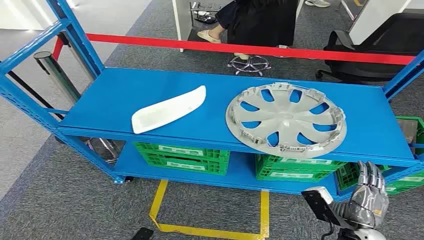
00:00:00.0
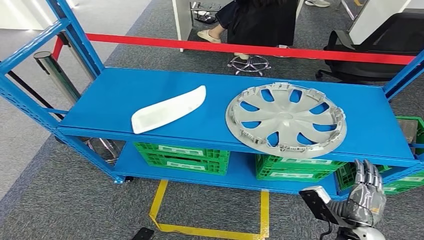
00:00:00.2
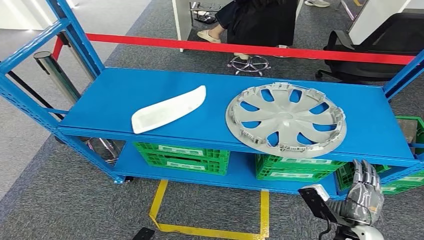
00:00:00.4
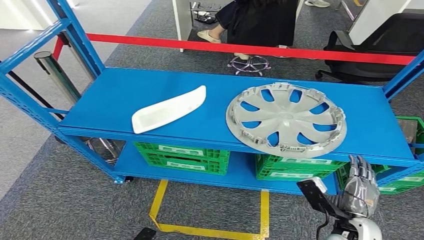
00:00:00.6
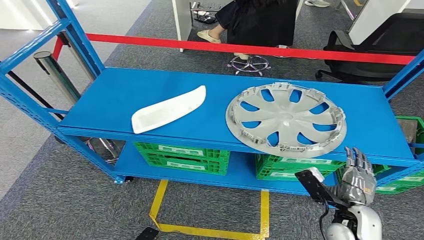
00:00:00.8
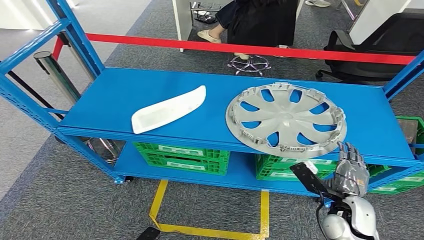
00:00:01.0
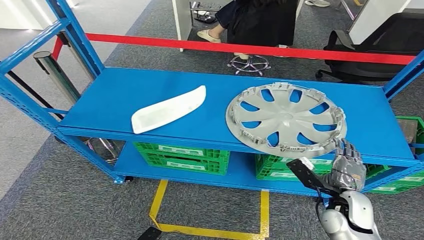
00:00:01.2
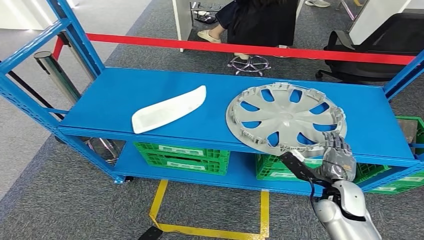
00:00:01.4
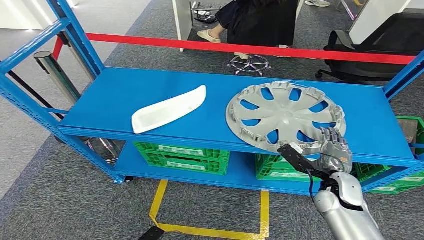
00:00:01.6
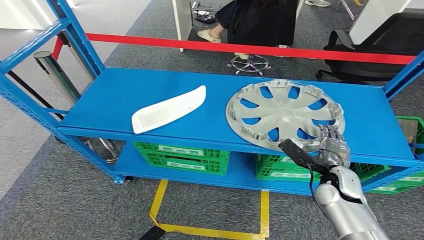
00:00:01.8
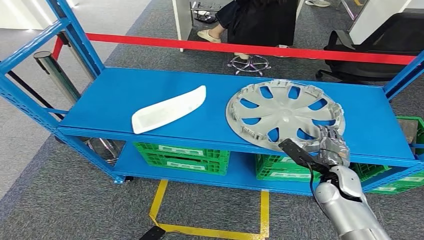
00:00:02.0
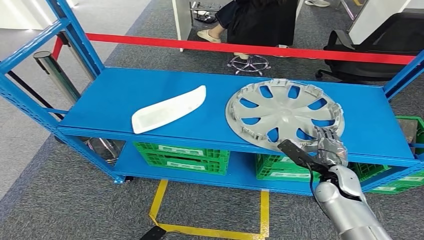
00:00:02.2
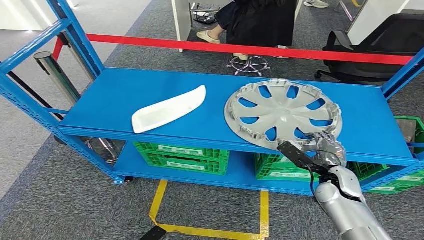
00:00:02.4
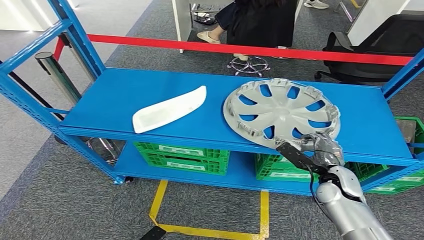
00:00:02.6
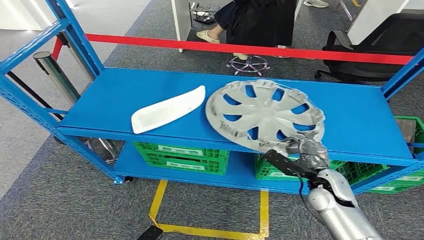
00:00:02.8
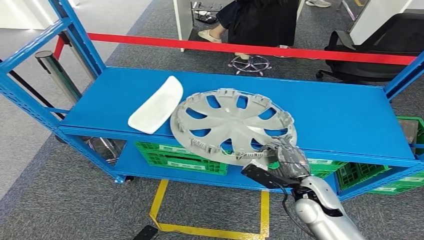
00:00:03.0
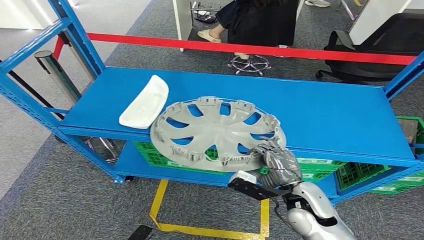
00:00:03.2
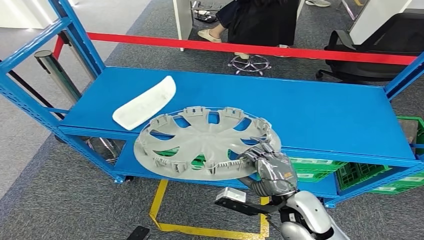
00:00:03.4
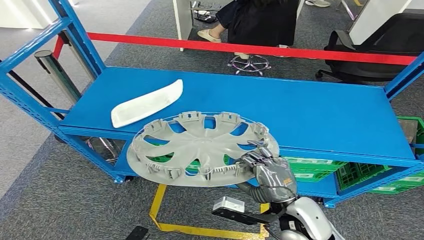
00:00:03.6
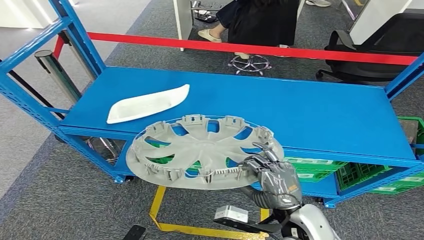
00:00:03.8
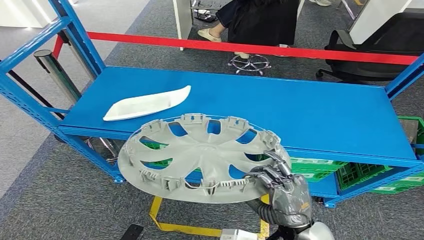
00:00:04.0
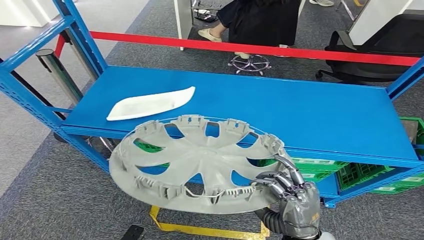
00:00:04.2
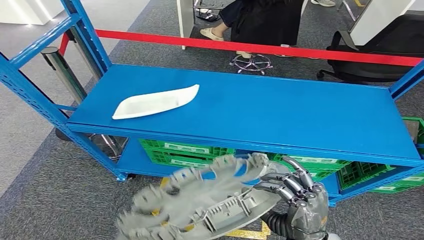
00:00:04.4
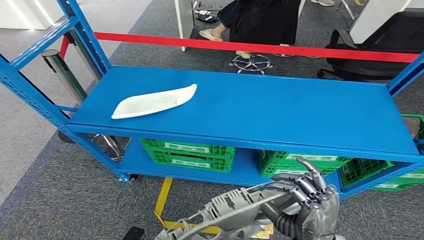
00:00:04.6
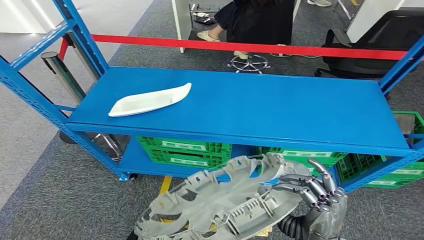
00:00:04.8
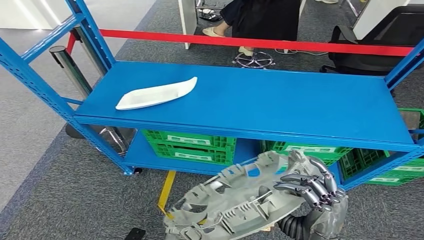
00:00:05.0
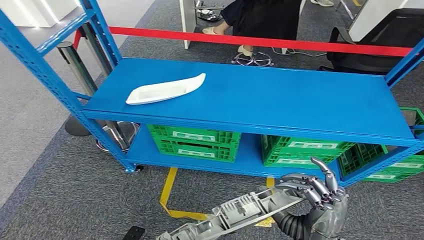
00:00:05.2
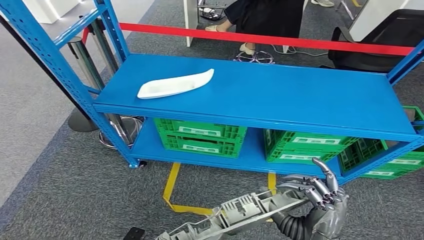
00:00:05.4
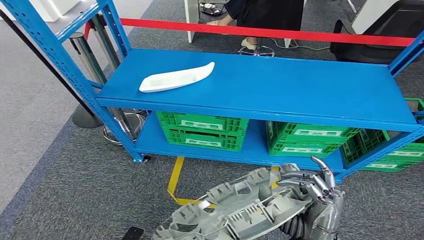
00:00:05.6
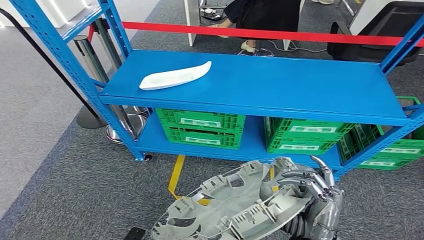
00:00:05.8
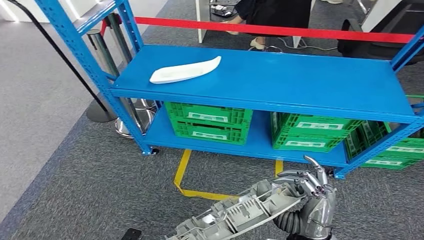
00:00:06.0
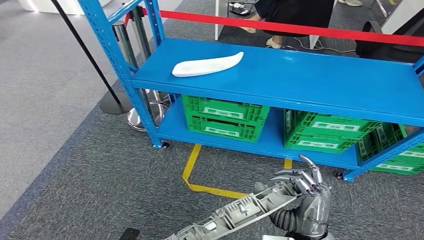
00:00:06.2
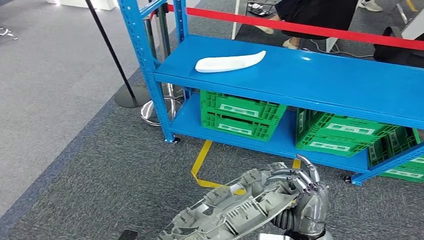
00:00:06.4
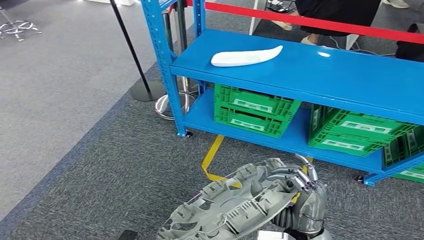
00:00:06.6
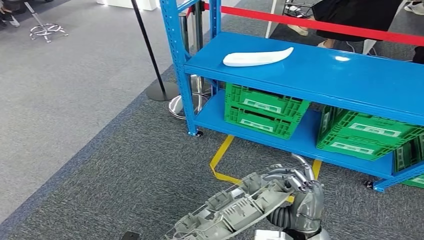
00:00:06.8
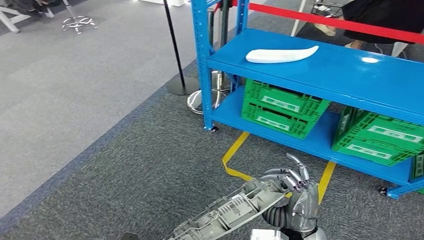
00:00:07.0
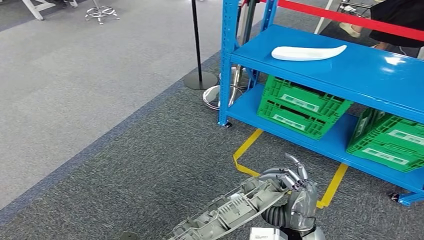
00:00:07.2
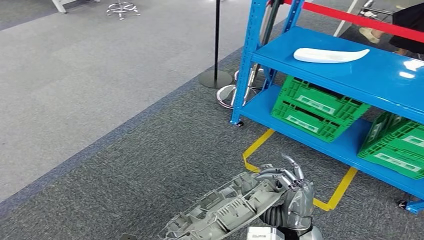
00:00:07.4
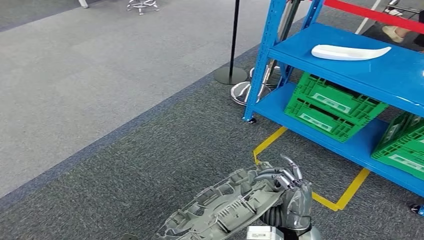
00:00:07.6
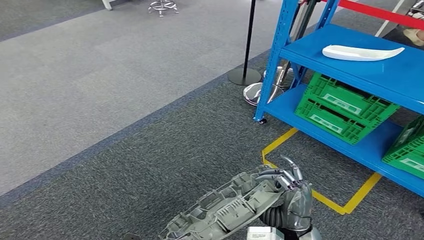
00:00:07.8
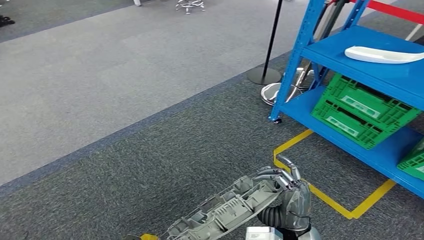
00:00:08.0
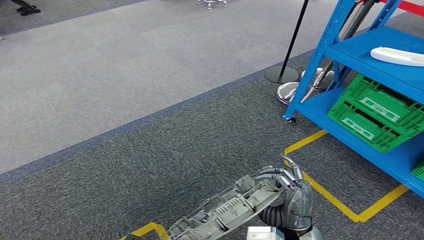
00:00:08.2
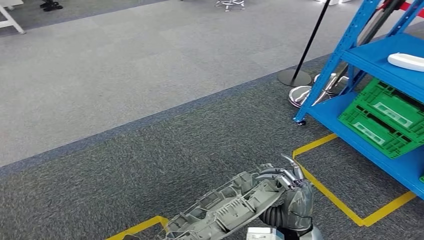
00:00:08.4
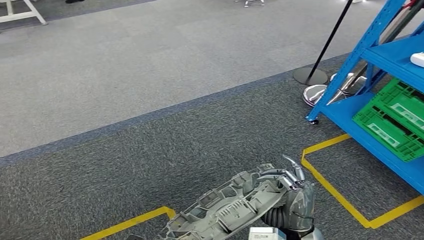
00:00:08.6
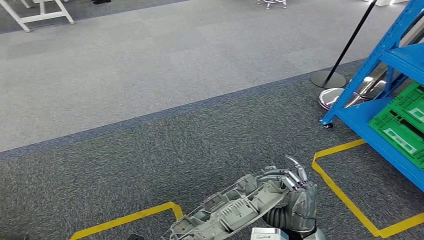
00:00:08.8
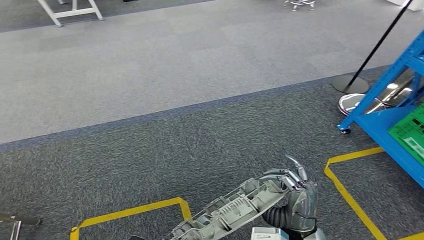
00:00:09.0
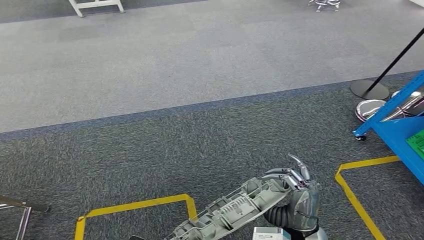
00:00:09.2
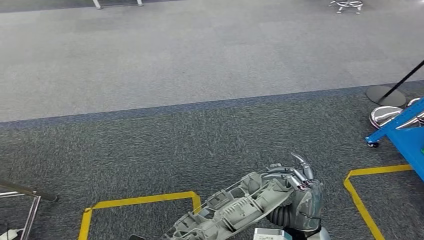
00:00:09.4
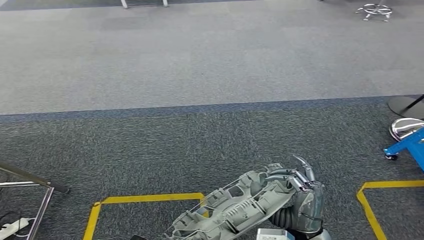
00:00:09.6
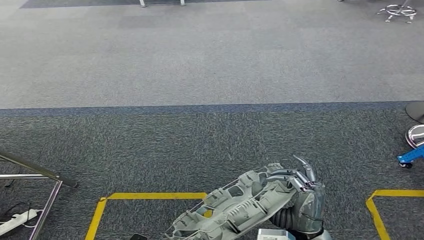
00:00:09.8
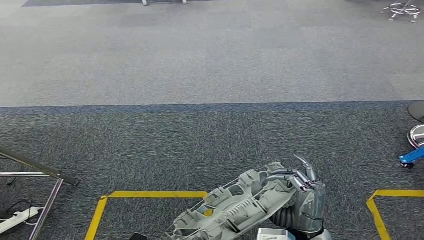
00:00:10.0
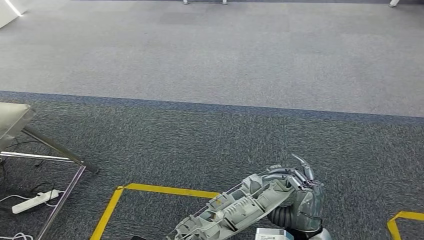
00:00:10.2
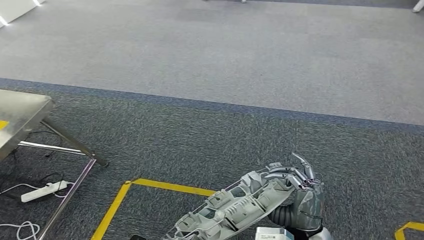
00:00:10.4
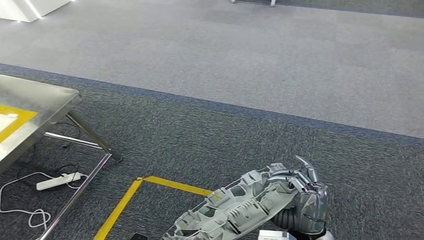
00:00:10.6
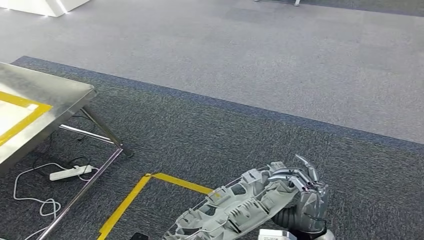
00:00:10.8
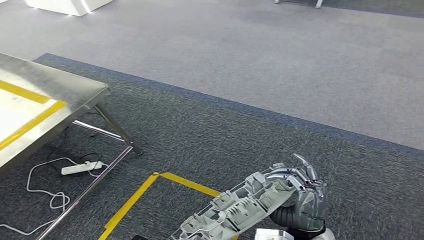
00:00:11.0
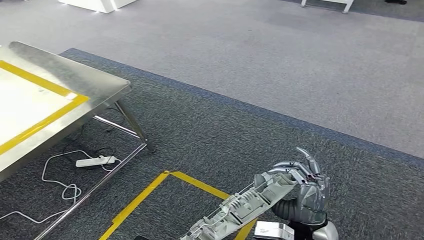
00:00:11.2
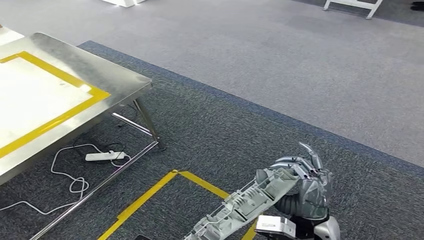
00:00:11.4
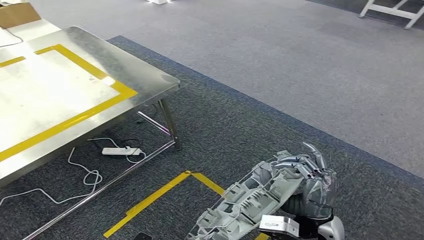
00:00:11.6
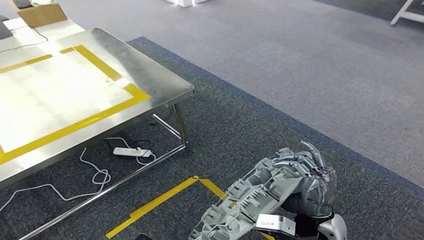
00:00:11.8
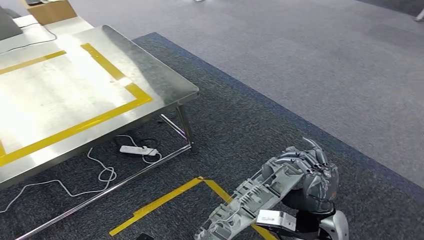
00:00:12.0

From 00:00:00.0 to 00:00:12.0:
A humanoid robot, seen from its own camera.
Step, from 00:00:00.0 to 00:00:05.6: Pick up the small component from the shelf.
From 00:00:01.6 to 00:00:03.0: The right hand is displaced to the left by approximately 5 cm.

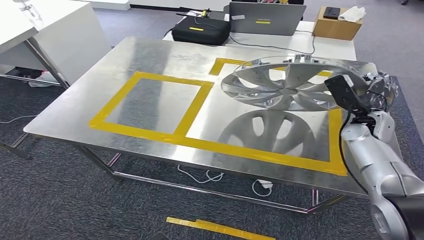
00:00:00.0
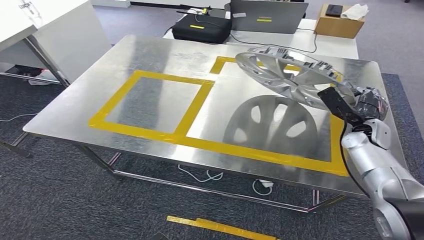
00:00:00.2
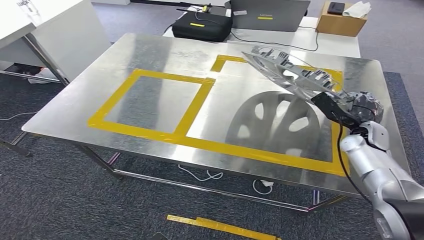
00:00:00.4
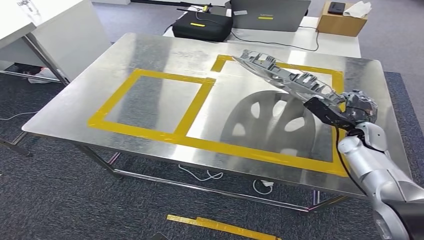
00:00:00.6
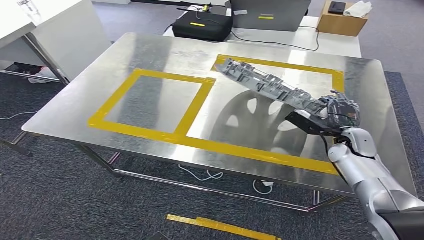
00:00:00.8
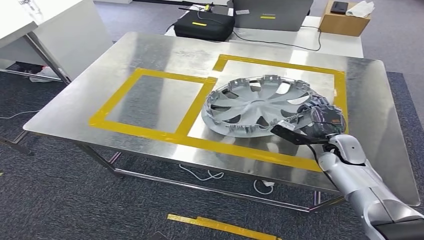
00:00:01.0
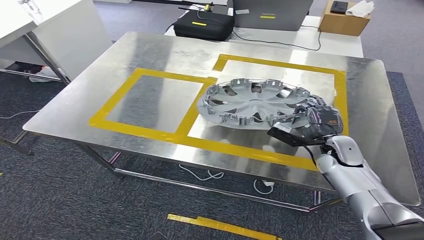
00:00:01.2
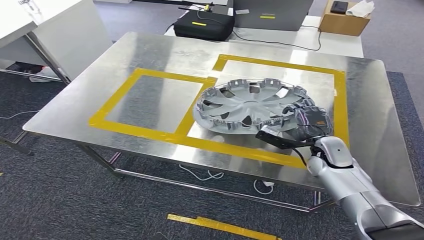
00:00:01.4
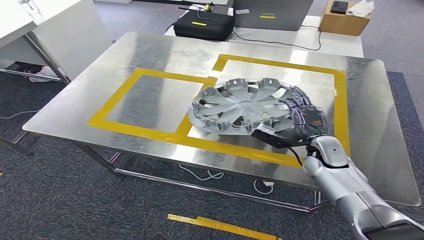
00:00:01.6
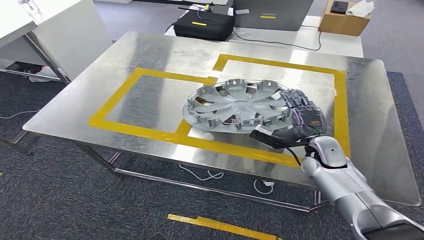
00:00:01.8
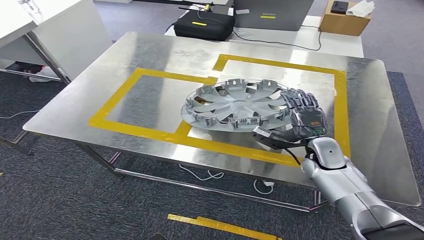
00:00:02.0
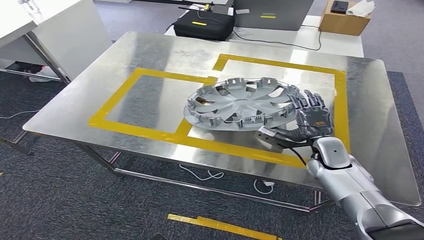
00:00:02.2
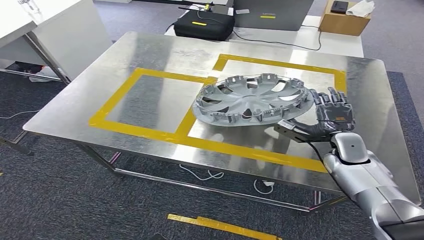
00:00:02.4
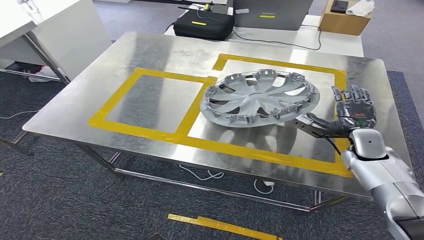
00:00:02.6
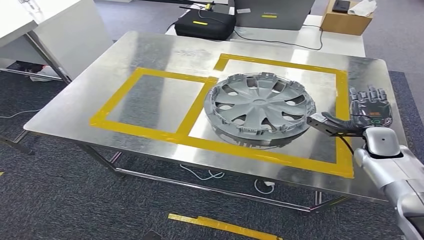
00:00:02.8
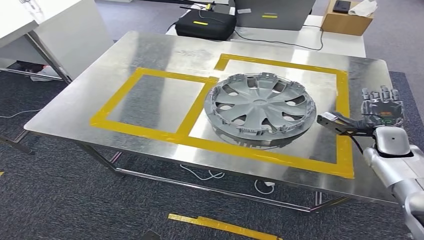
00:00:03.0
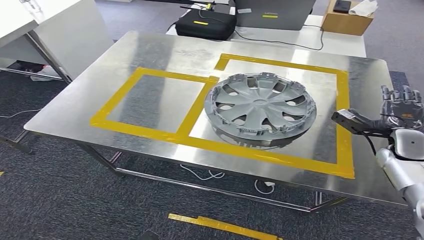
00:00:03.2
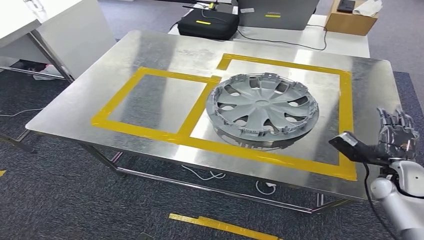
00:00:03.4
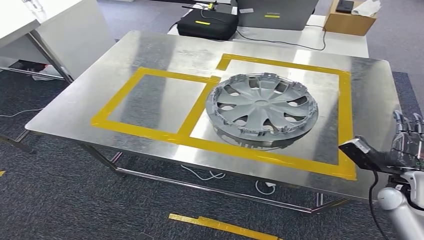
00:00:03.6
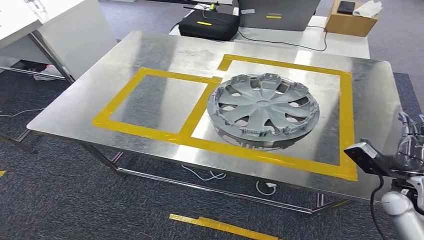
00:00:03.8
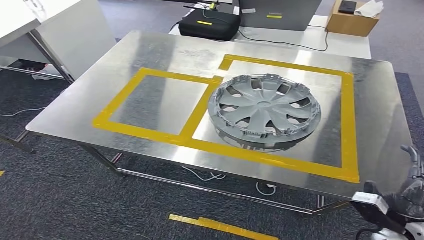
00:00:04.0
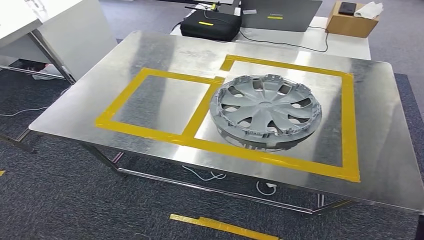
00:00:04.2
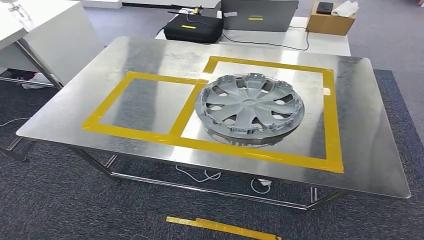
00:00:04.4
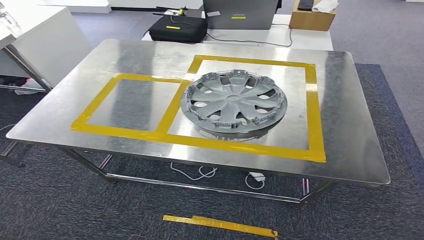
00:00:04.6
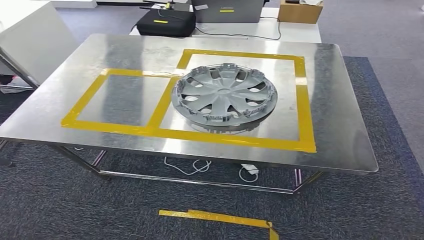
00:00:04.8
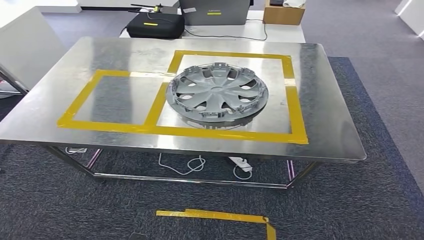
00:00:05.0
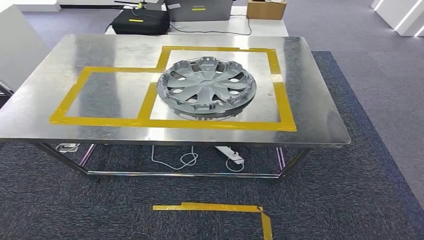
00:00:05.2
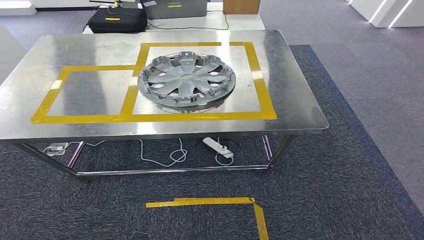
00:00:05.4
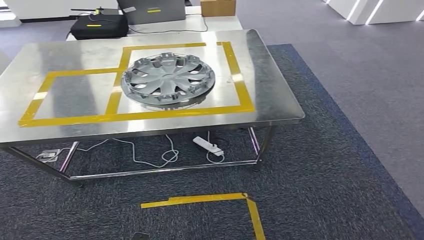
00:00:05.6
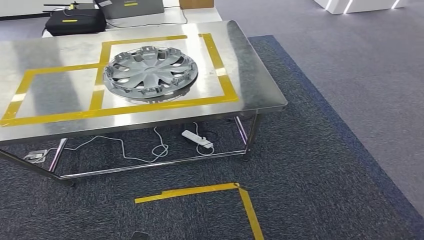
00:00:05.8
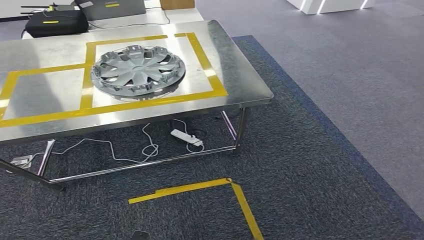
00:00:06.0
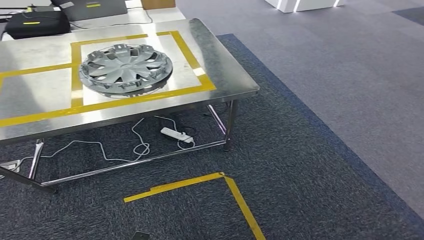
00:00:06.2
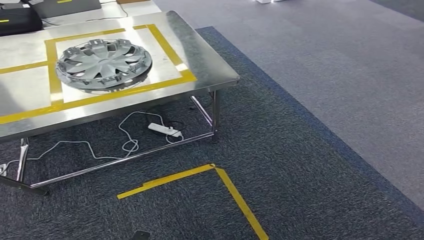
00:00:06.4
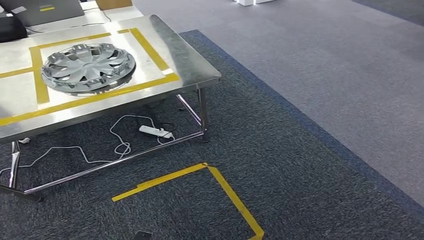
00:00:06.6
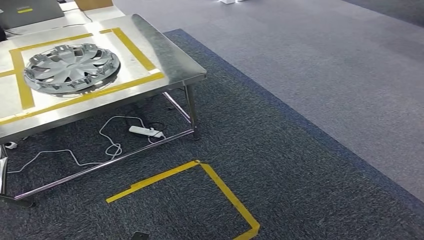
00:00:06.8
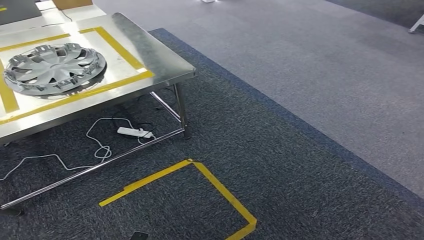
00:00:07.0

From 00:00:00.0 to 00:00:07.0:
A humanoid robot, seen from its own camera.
Step, from 00:00:00.0 to 00:00:03.8: Insert the small component into the corresponding slot on the workbench.
From 00:00:01.4 to 00:00:02.8: The right hand travels to the right by about 10 cm.
From 00:00:02.8 to 00:00:04.2: The right hand goes some 30 cm backward and downward.
